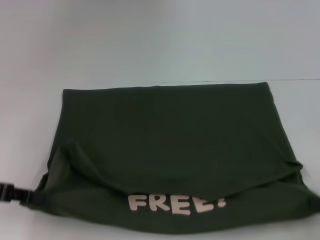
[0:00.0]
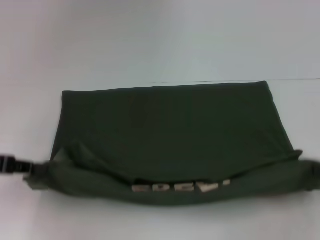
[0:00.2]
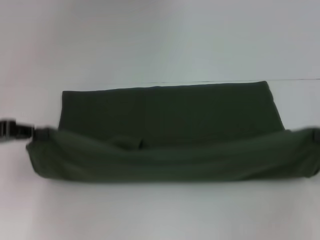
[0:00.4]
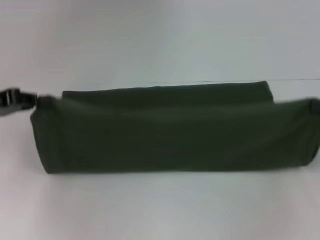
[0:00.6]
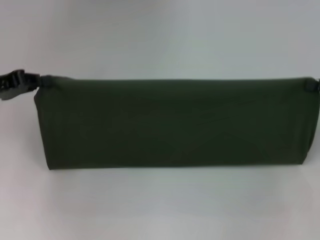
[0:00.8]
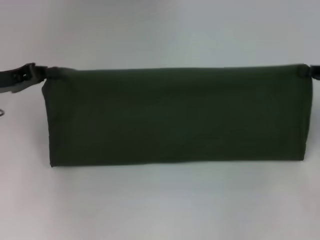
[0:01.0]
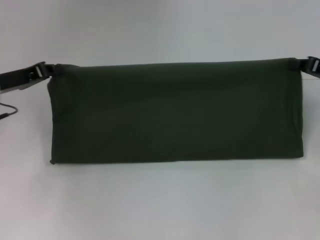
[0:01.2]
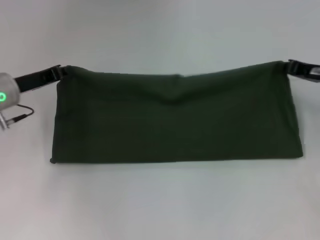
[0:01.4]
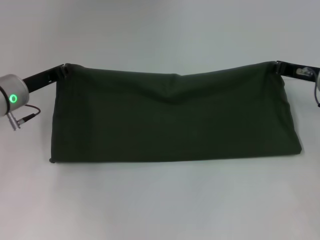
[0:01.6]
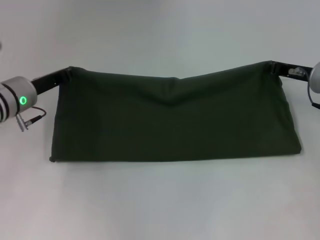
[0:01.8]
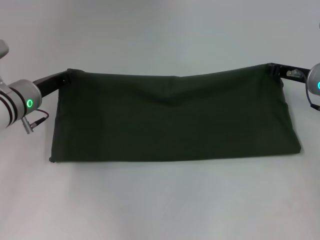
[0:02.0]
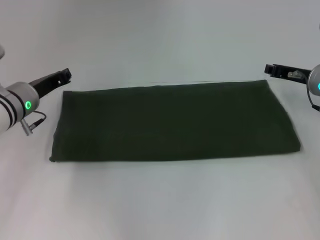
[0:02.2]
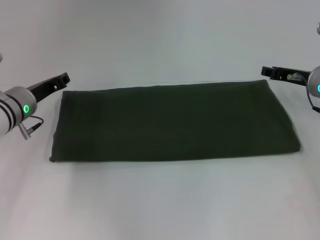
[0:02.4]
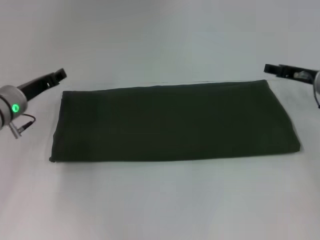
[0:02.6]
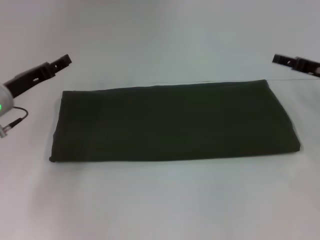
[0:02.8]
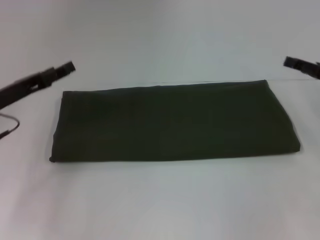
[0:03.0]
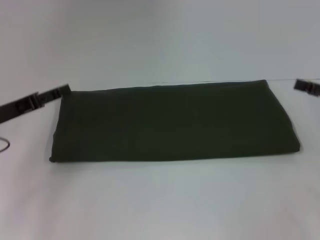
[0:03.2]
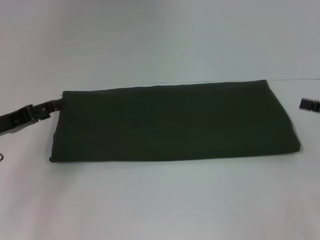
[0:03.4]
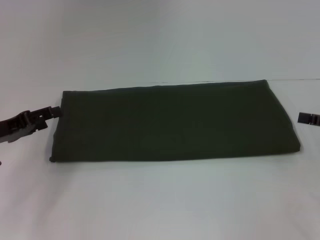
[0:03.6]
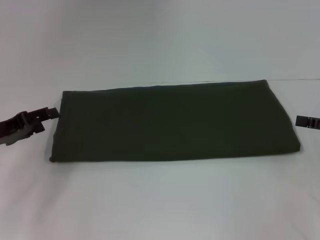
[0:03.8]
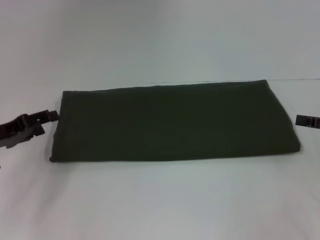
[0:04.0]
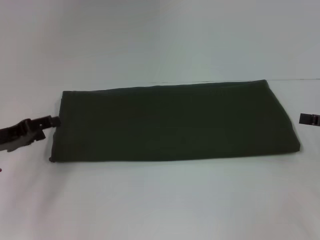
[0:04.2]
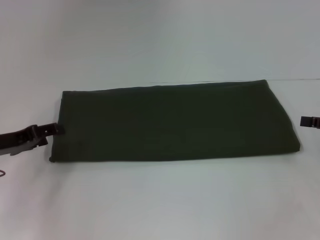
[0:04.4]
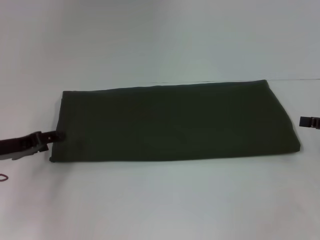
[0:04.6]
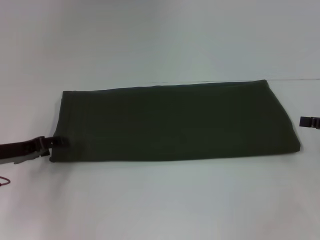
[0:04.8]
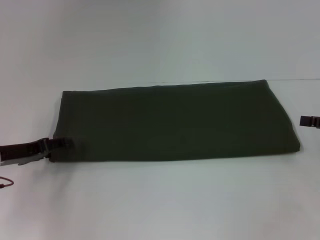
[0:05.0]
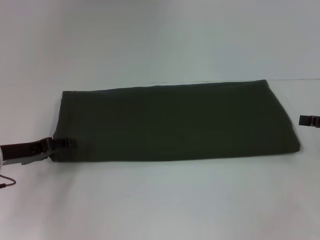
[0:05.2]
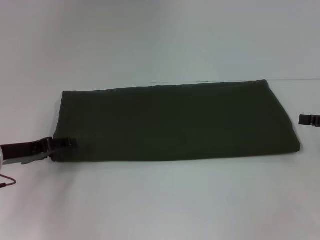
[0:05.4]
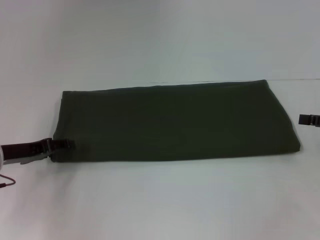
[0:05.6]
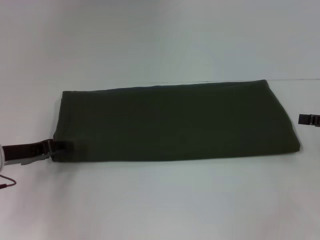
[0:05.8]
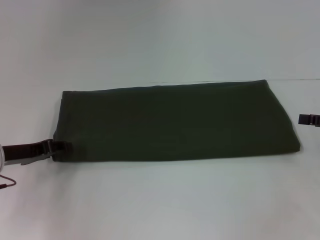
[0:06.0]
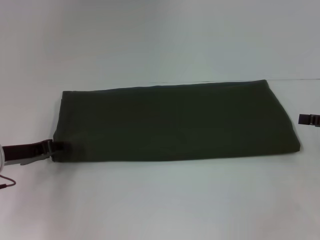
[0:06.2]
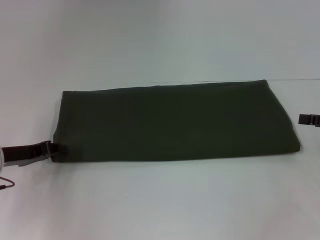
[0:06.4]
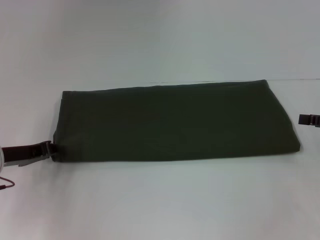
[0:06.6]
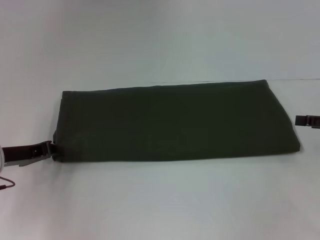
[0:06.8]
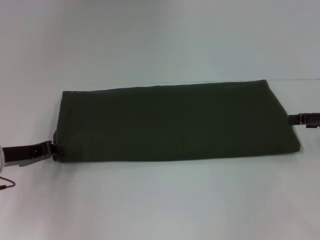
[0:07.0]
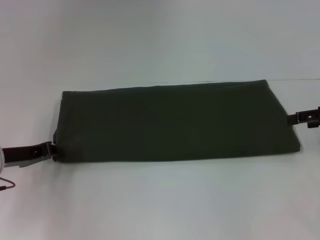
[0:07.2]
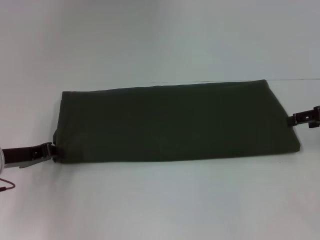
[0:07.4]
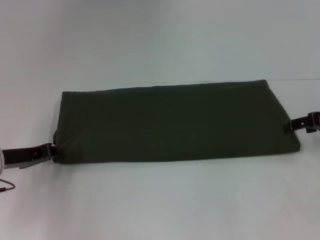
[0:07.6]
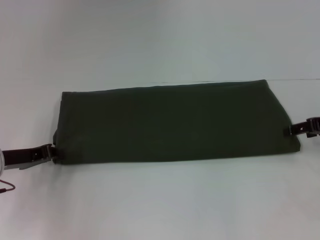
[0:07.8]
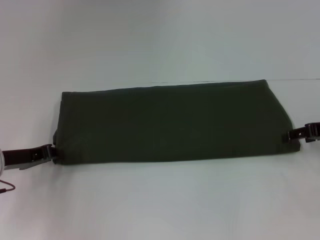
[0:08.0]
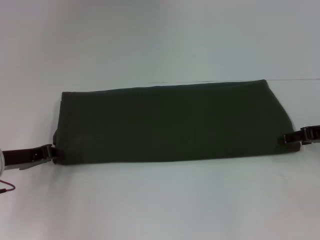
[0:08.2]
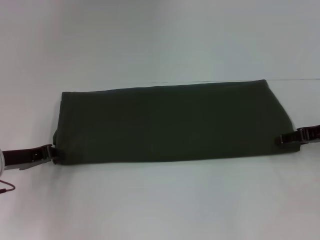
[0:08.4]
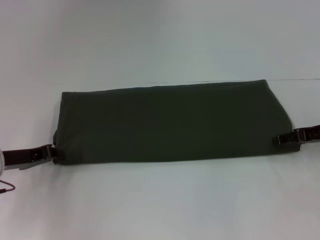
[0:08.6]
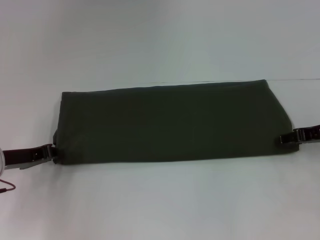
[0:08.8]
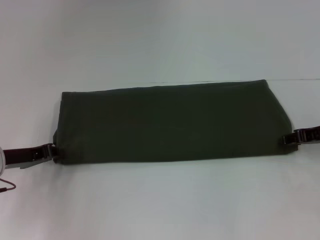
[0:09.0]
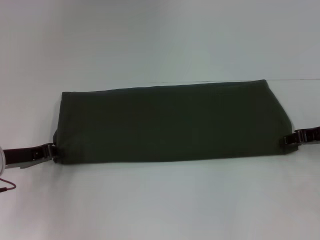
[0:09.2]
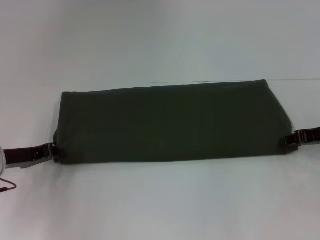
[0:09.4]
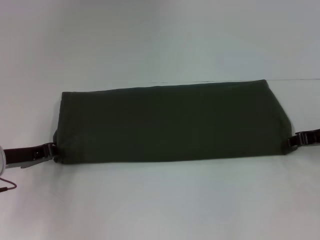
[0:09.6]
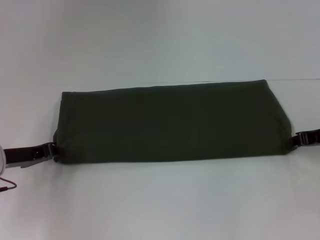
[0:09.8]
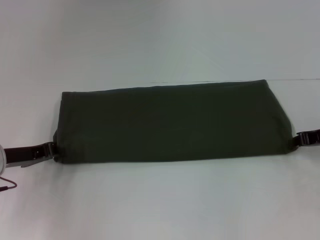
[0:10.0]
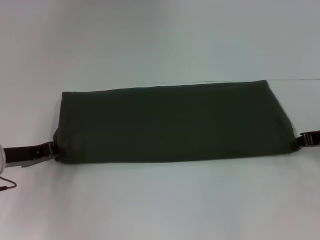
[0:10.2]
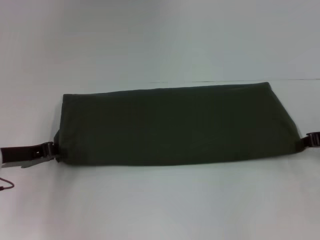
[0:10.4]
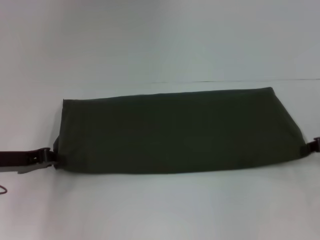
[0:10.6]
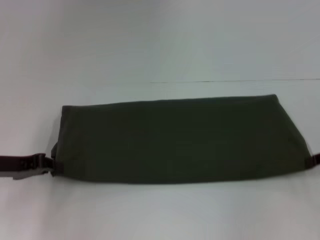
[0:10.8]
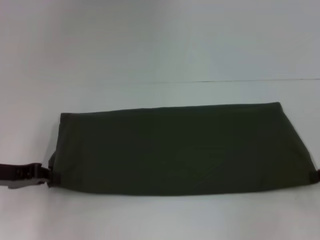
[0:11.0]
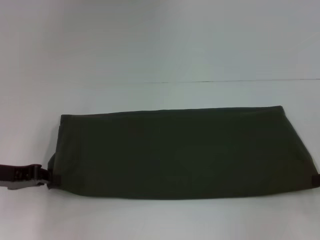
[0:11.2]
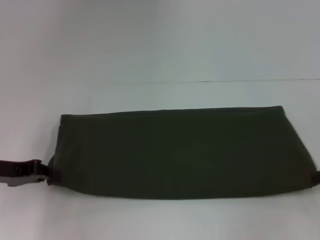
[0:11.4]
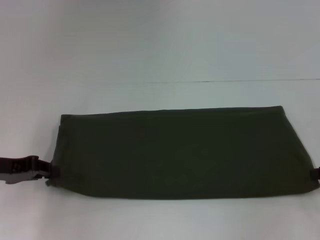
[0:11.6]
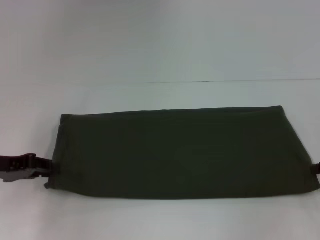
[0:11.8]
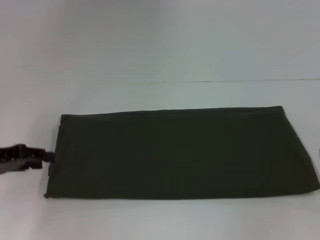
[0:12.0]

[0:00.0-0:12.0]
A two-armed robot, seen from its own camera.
Step, 0:00.0 to 0:02.4: Fold the clothes with your right hand.
0:00.0 to 0:01.6: The right gripper heads forward and to the left, covering roughly 20 cm. Meanwhile the left gripper shifts roughly 15 cm forward and to the right.
0:01.6 to 0:03.0: The left gripper moves approximately 5 cm, and opens up; the right gripper is displaced to the right and backward by approximately 10 cm, and opens up.
0:03.0 to 0:04.4: The right gripper moves about 5 cm. Meanwhile the left gripper ends up approximately 5 cm from where it was.
0:04.4 to 0:06.0: There are only small adjustments of the grippers.
0:06.0 to 0:07.6: The left gripper closes.
0:07.6 to 0:09.0: The grippers move only a little.
0:09.0 to 0:10.4: The right gripper closes its fingers.
0:10.4 to 0:12.0: The left gripper changes place by about 5 cm. Meanwhile the right gripper heads to the right and backward, covering some 5 cm, and opens up.

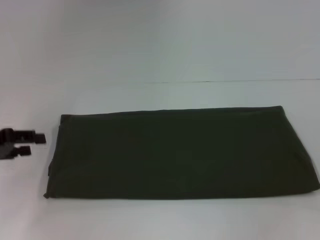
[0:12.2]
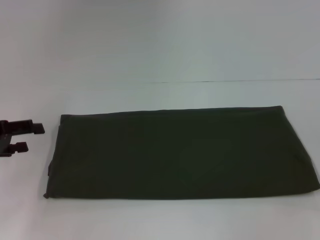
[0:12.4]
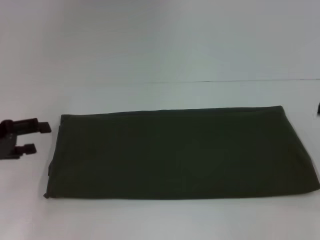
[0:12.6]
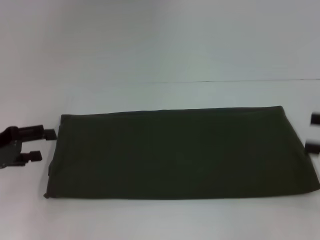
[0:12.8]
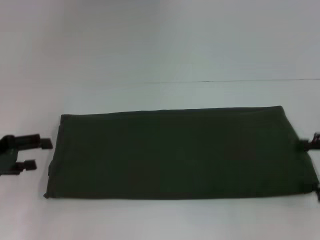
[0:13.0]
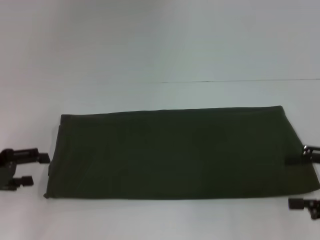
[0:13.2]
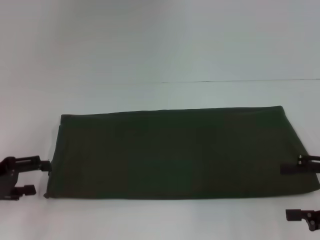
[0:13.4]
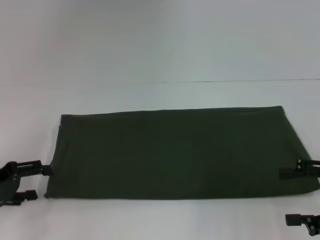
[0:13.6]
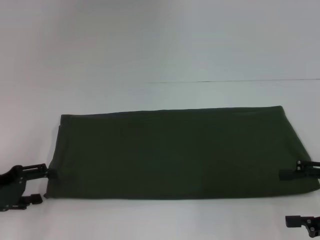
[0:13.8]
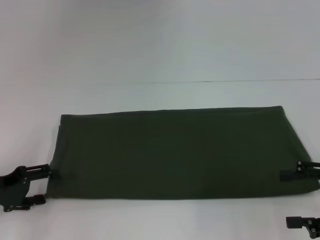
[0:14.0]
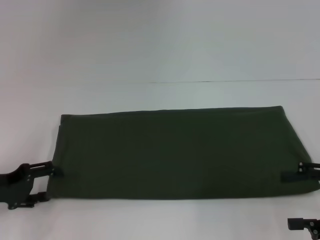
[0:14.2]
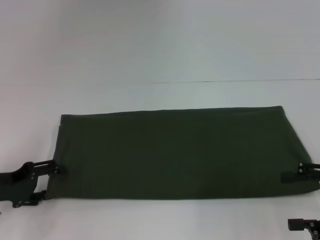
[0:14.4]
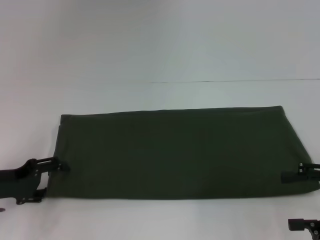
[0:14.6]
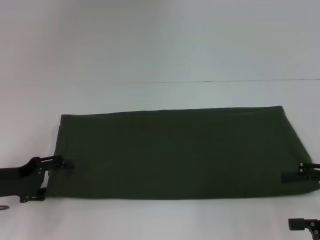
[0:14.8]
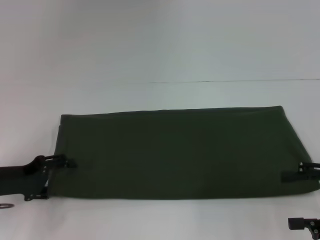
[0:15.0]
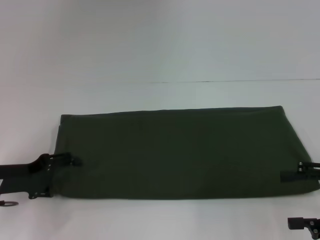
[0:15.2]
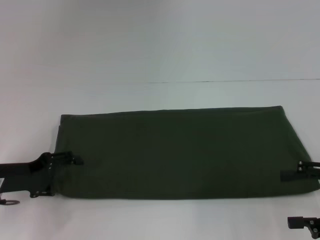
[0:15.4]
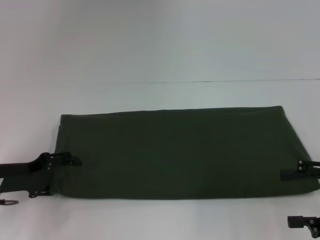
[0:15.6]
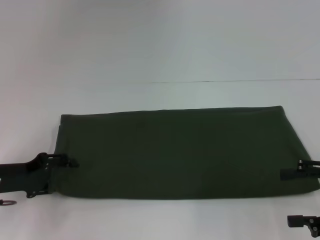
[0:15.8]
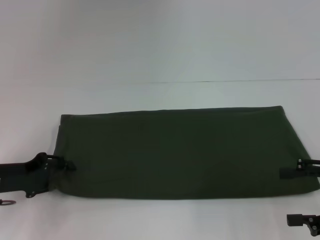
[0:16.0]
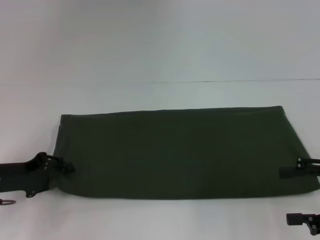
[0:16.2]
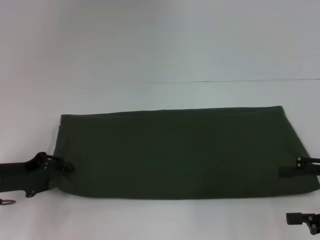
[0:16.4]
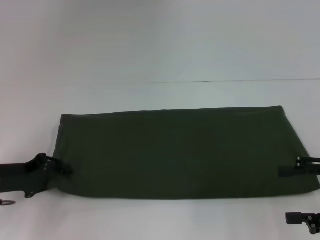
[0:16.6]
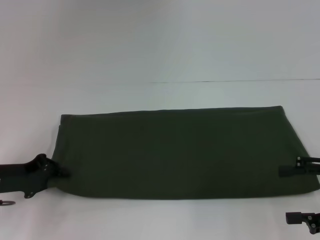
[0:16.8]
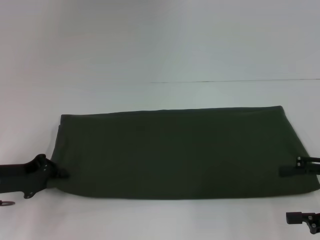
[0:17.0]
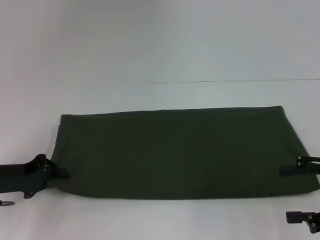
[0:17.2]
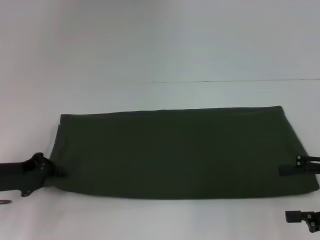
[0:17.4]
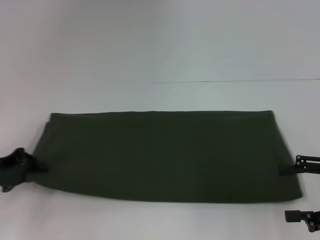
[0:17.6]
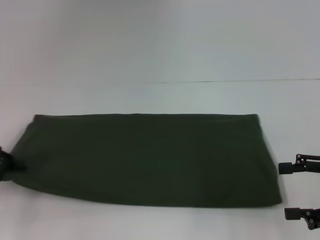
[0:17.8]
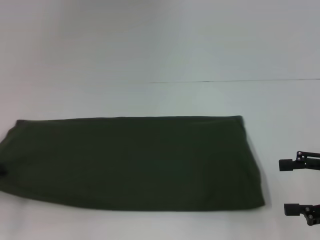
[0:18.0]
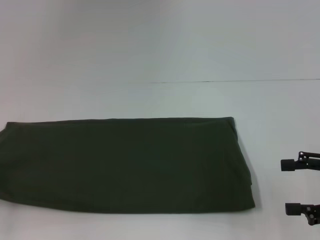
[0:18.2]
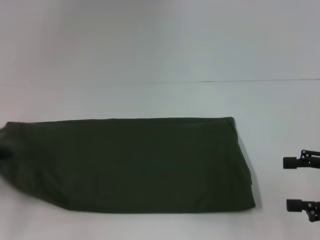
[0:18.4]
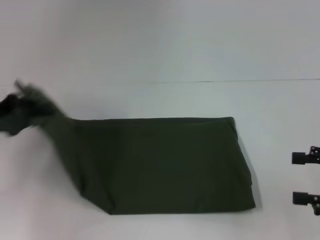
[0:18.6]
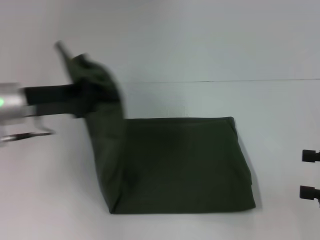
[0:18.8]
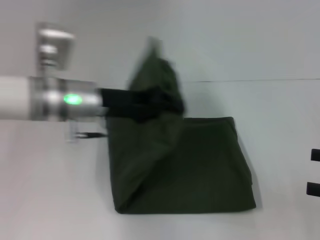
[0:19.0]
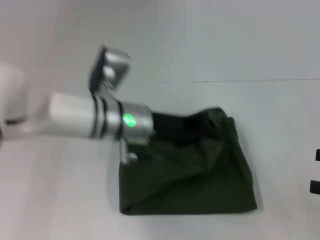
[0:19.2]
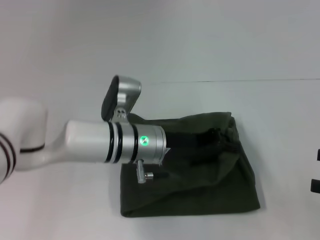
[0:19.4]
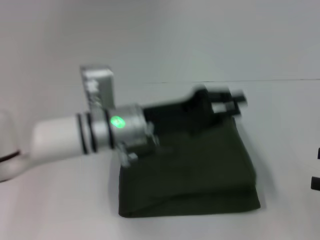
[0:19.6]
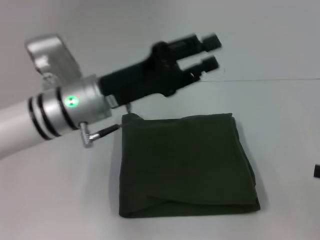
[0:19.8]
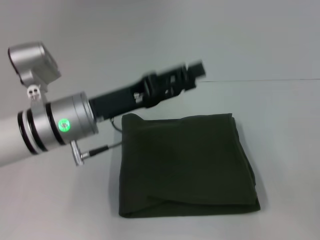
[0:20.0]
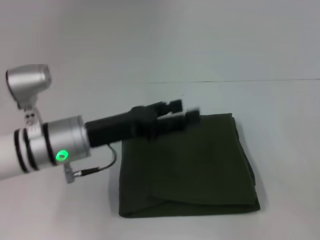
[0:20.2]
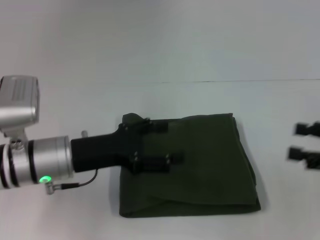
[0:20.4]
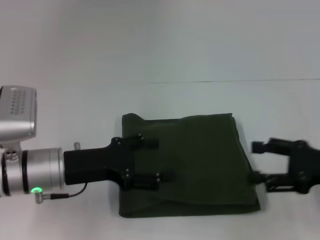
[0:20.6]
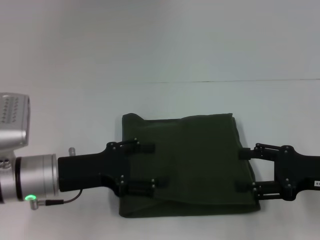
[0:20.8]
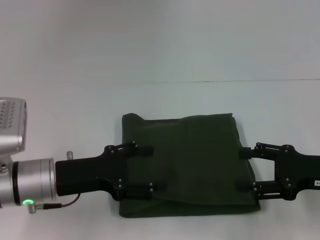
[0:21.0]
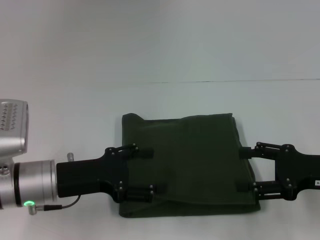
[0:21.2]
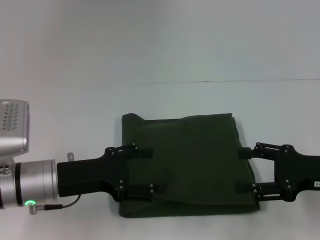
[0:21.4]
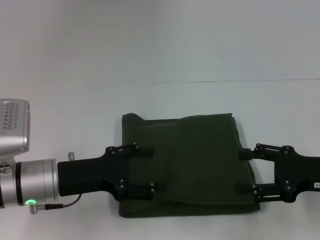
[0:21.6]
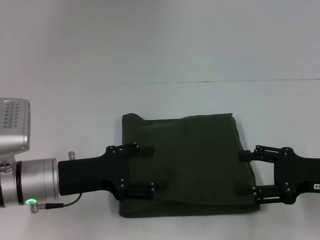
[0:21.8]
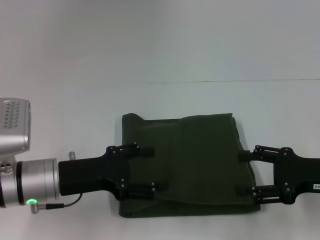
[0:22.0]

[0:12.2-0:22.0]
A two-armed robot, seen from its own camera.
Step, 0:12.2 to 0:20.0: Fold the clothes with your left hand.
0:12.2 to 0:13.6: The right gripper moves to the left and backward, roughly 10 cm, and opens its fingers. Meanwhile the left gripper ends up about 5 cm from where it was, and opens.
0:13.6 to 0:15.0: The grippers make only small movements.
0:15.0 to 0:16.4: The left gripper closes up.
0:16.4 to 0:17.8: The left gripper moves to the left, approximately 5 cm.
0:17.8 to 0:19.2: The left gripper heads to the right, covering approximately 30 cm. Meanwhile the right gripper moves roughly 5 cm.
0:19.2 to 0:20.6: The right gripper goes some 10 cm to the left, while the left gripper is displaced to the left and backward by some 15 cm, and opens its fingers.
0:20.6 to 0:22.0: The grippers stay close to where they were, moving slightly.
